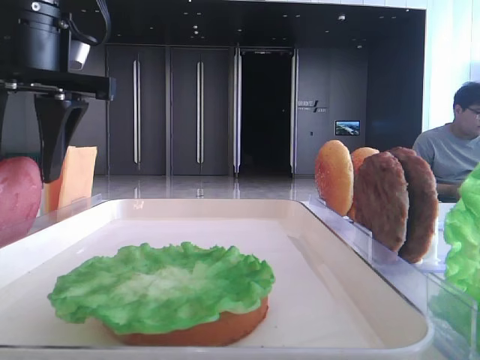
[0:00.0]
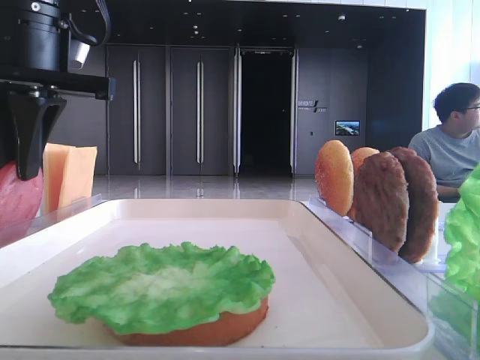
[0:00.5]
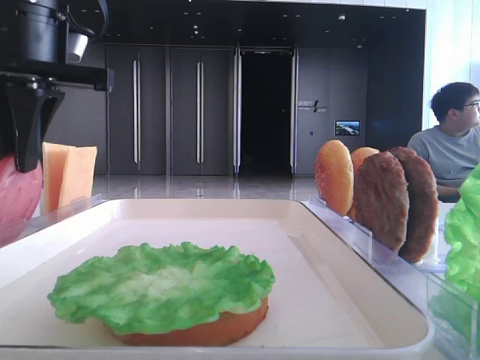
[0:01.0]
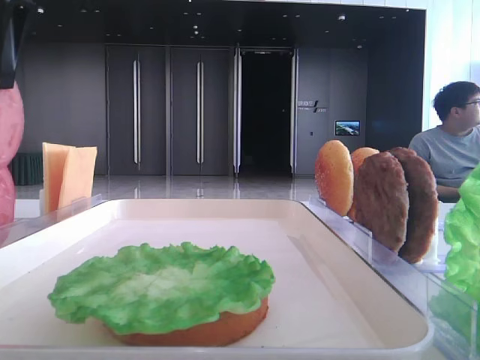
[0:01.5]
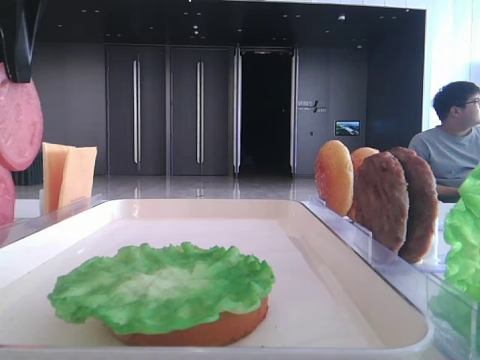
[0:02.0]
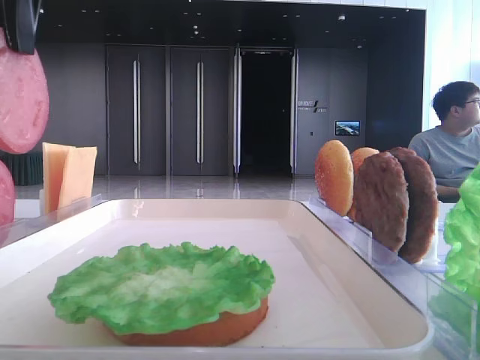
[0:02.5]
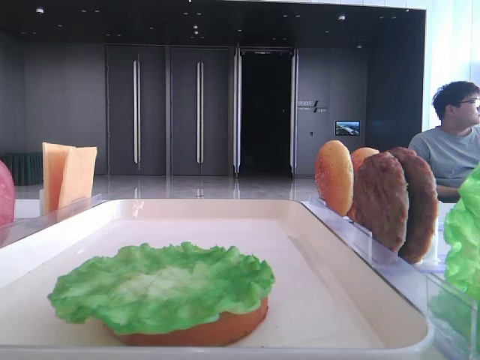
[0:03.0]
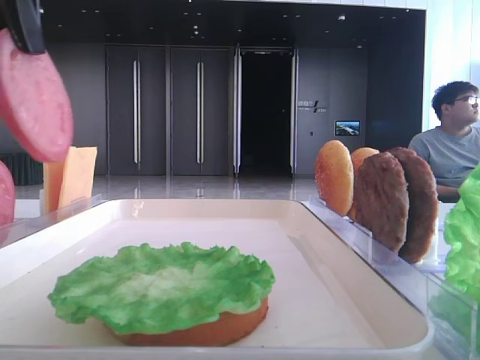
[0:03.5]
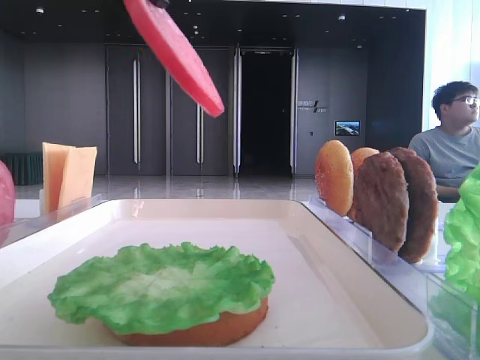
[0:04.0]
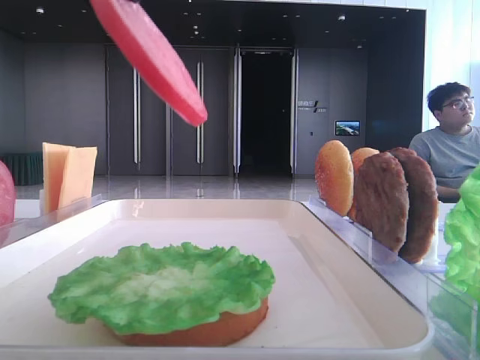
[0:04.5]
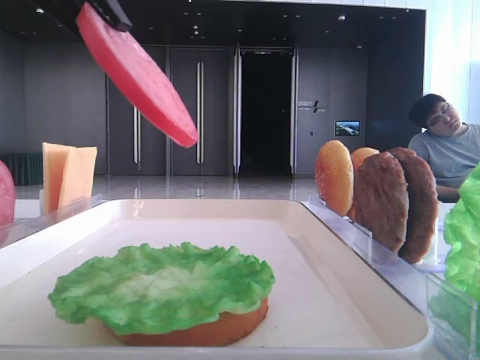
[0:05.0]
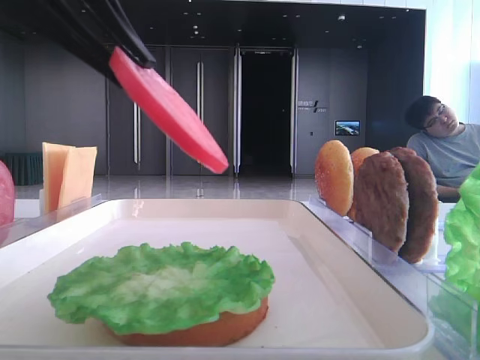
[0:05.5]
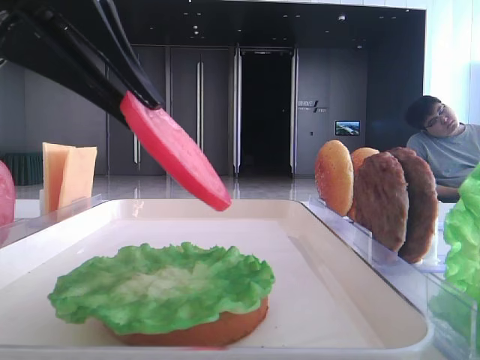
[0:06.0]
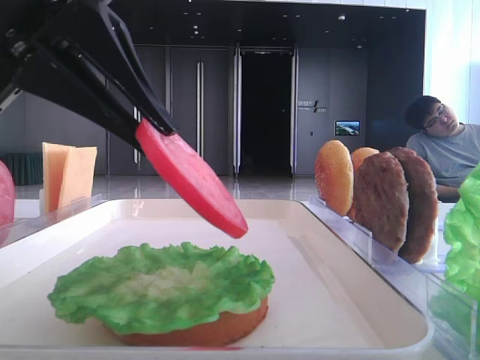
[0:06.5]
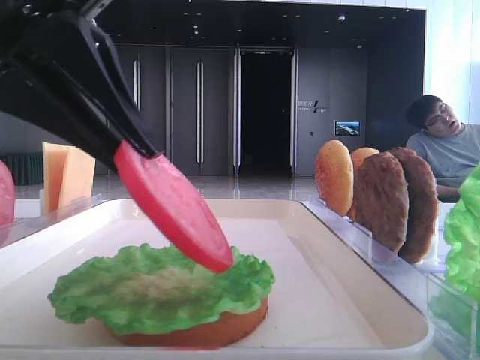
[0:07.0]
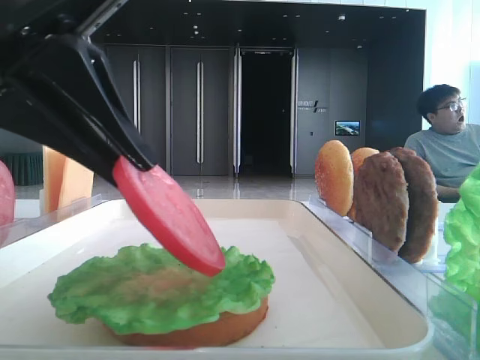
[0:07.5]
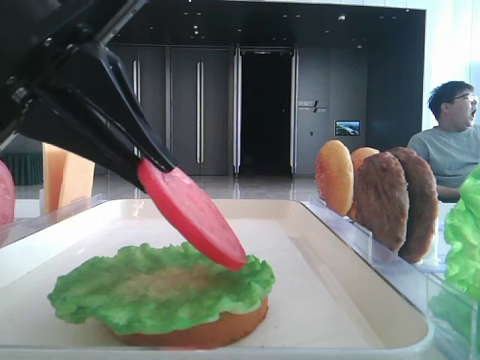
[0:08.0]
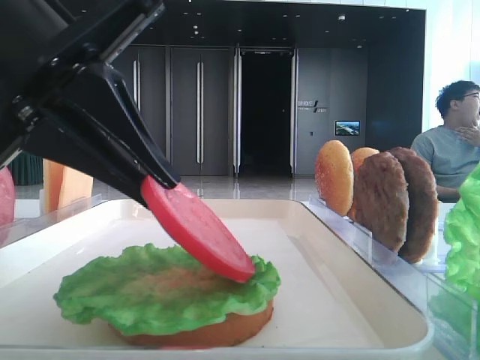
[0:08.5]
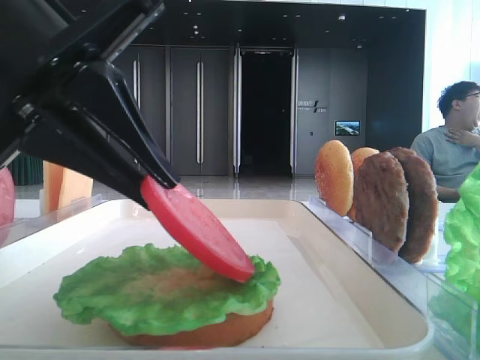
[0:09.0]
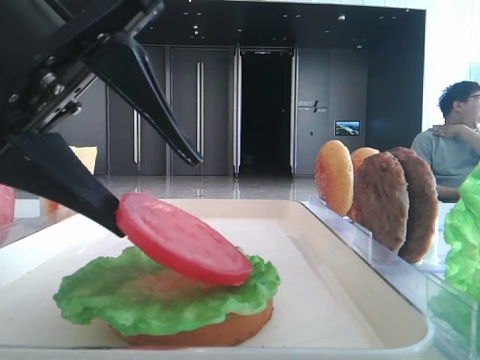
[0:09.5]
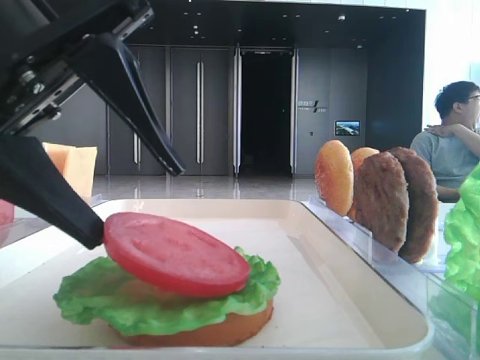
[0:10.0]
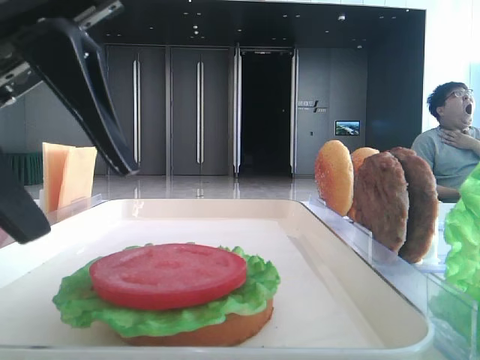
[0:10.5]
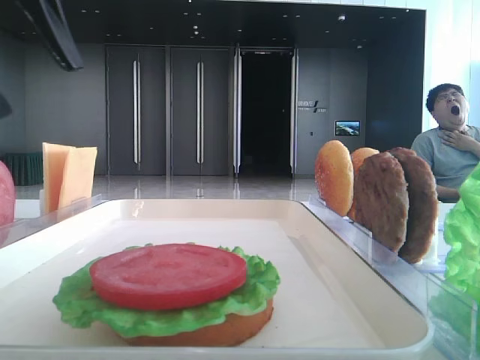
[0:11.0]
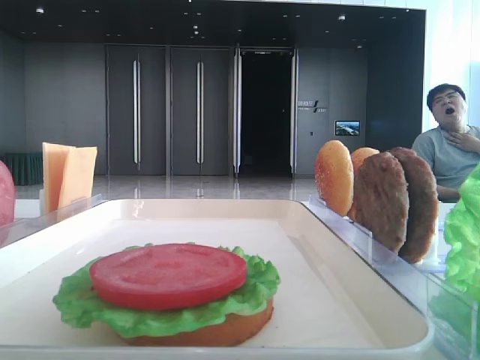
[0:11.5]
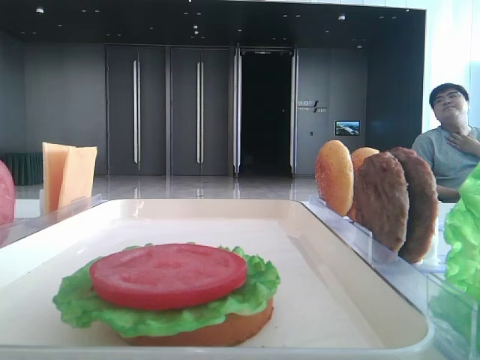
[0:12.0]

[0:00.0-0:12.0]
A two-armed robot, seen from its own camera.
Step, 0:01.0 to 0:10.0: Place the tomato slice on the lettuce leaf with the left hand.
0:00.0 to 0:02.0: The left gripper is displaced upward by approximately 5 cm, and closes.
0:02.0 to 0:04.0: The left gripper travels backward and to the right by some 10 cm.
0:04.0 to 0:06.0: The left gripper moves downward, roughly 5 cm.
0:06.0 to 0:08.0: The grippers move only a little.
0:08.0 to 0:10.0: The left gripper opens.
0:10.0 to 0:12.0: The left gripper moves to the left and upward, roughly 20 cm.
